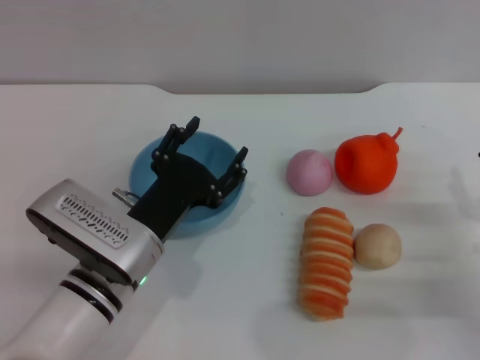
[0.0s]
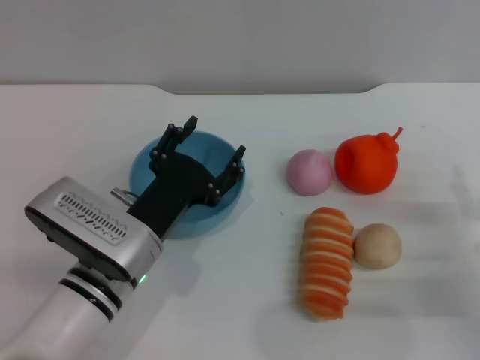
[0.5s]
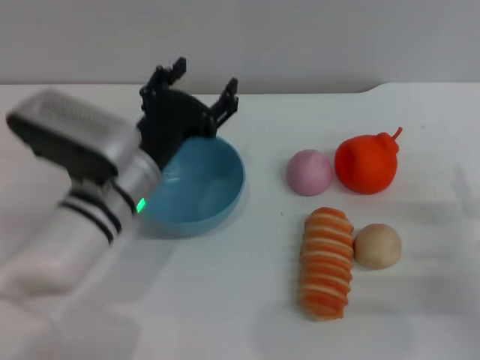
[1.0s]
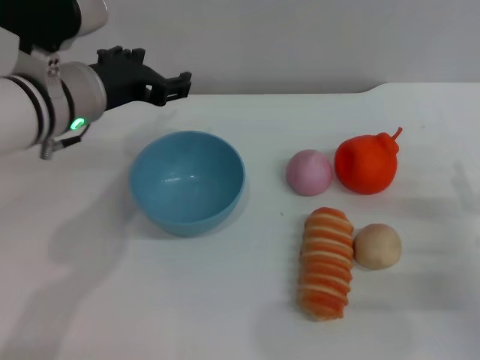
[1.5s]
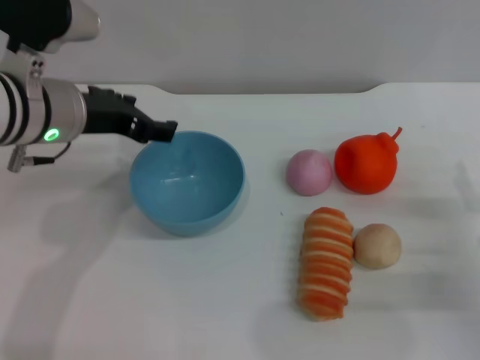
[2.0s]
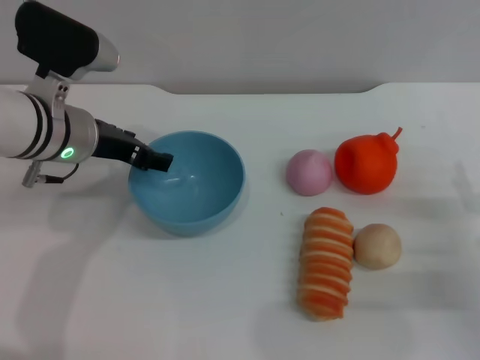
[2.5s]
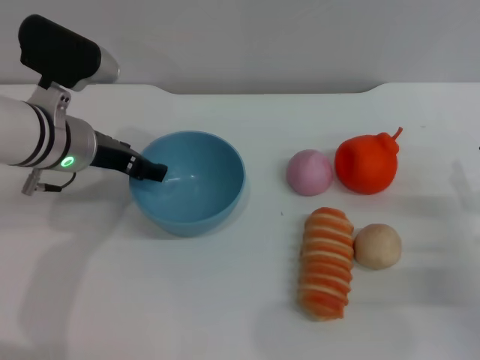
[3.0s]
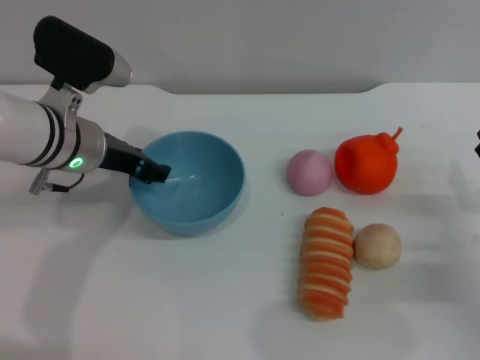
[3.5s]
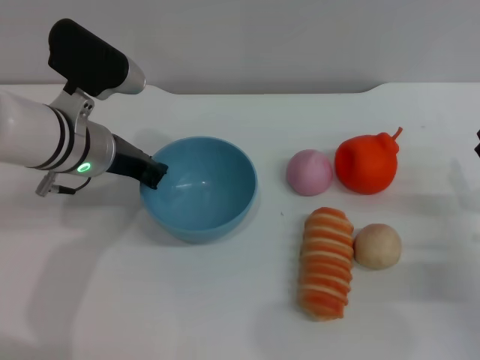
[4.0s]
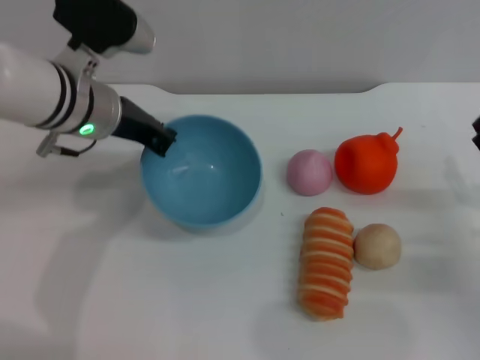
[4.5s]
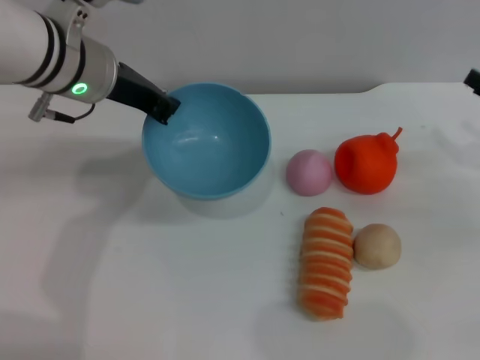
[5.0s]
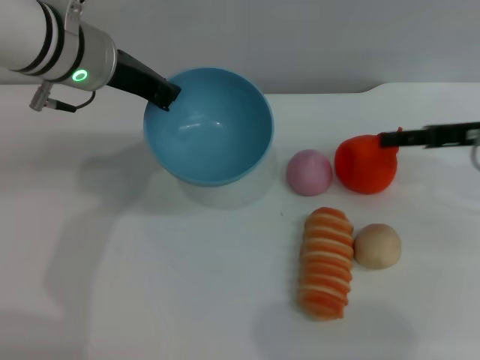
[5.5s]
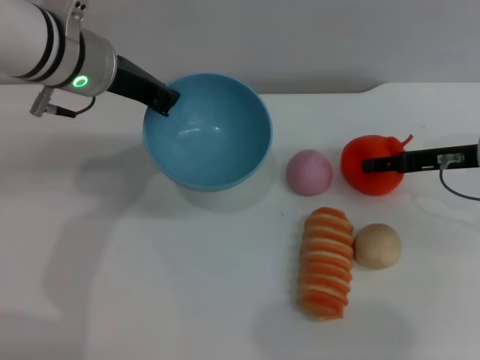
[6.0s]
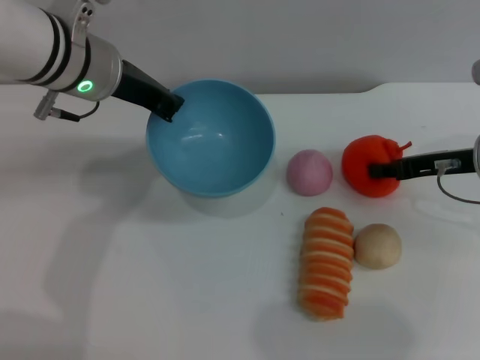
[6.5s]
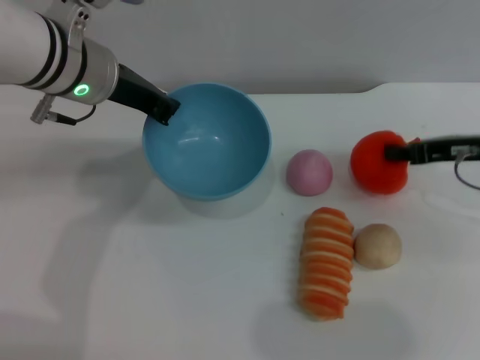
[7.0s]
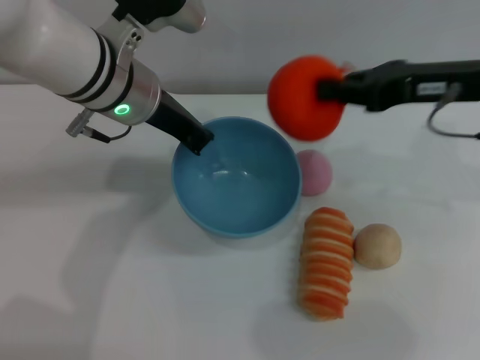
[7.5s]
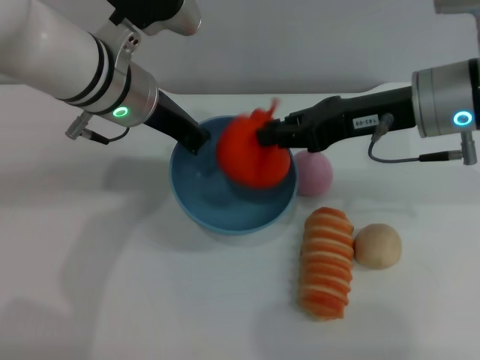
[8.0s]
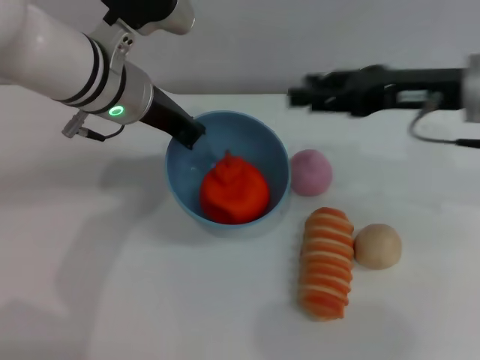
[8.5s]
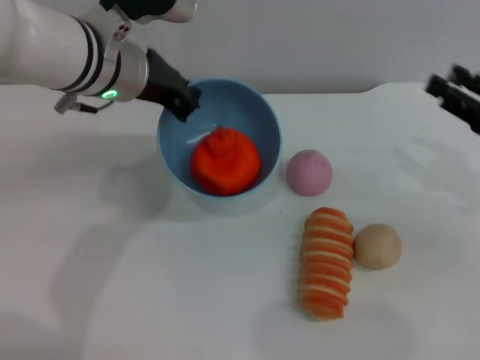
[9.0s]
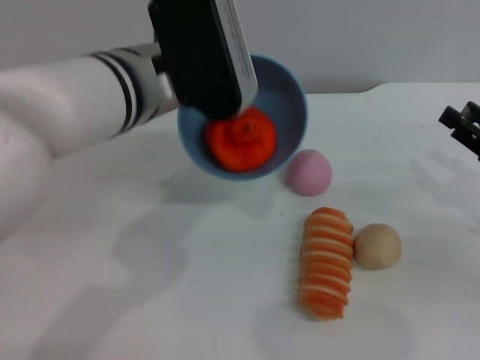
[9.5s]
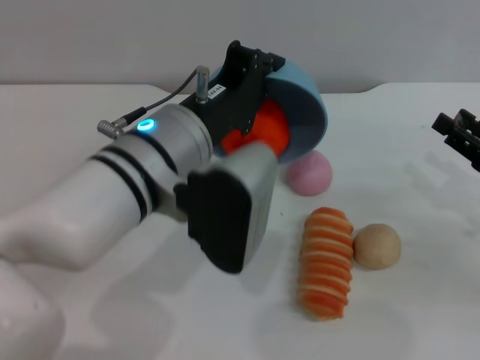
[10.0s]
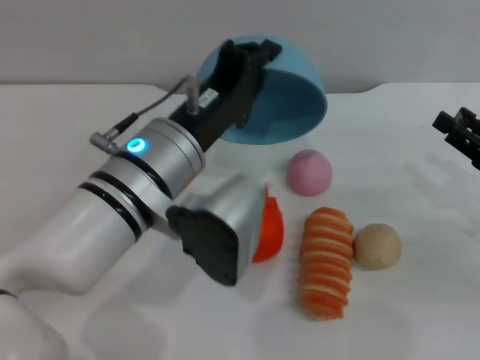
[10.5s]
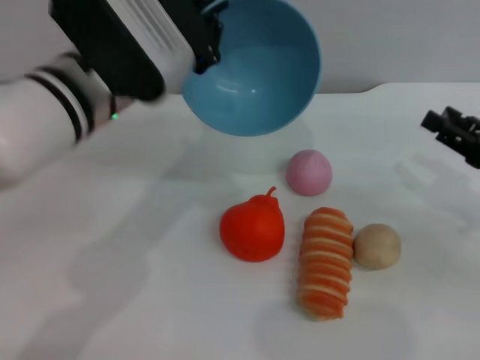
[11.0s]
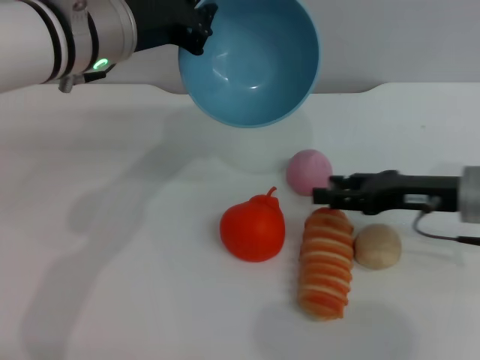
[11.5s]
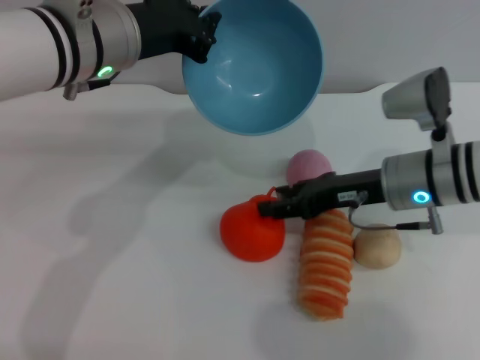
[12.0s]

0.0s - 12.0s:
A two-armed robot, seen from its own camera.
Task of the whole recording: put the orange into the blue bowl and pour it out repeatedly.
Step, 0.0s - 4.5s: Pick up the bowl with the left gripper.
Step, 5.0s - 7.0s: Pick up the orange with the right gripper.
Step, 7.5s - 8.0s: Place the orange into the bowl.
Step, 8.5s - 10.5s: Pour the orange out of the bowl.
0.0s - 2.0s: The left gripper moves upward and forward, some 15 cm.
2.0s - 4.0s: The left gripper shifts roughly 5 cm downward, and closes up.
4.0s - 6.0s: The right gripper travels forward and upward by approximately 15 cm, while the left gripper shifts some 10 cm upward, and closes.
6.0s - 8.0s: The right gripper heads to the left and upward, covering some 15 cm, and closes its fingers.
8.0s - 10.0s: The left gripper shifts some 10 cm backward; the right gripper goes some 20 cm to the right, downward and backward, and opens its fingers.
10.0s - 12.0s: The left gripper travels forward, to the left and upward by approximately 10 cm. The right gripper shifts some 15 cm to the left and forward.

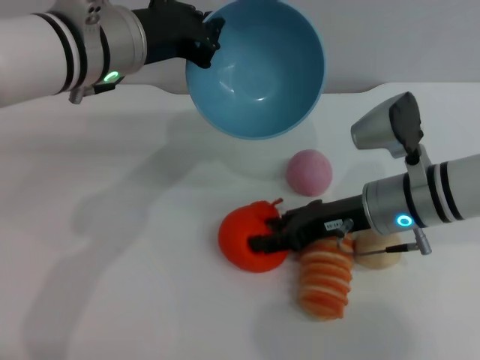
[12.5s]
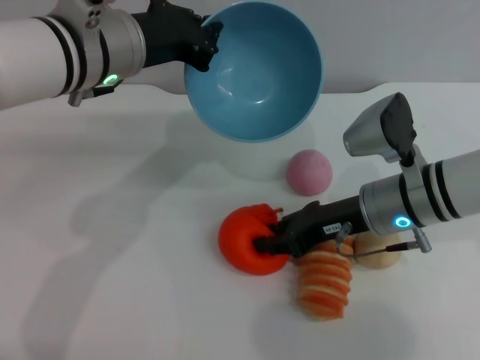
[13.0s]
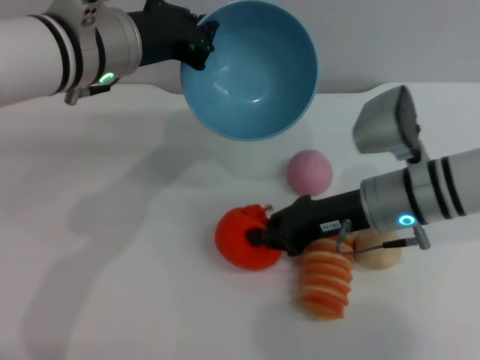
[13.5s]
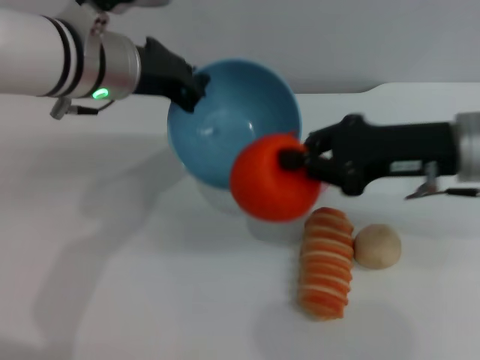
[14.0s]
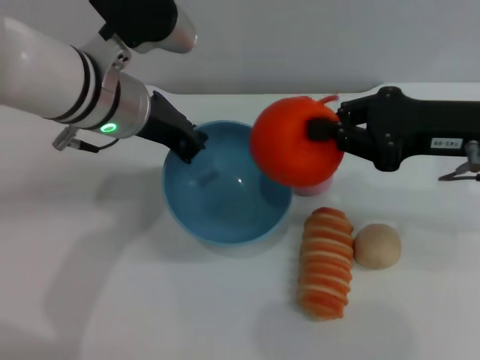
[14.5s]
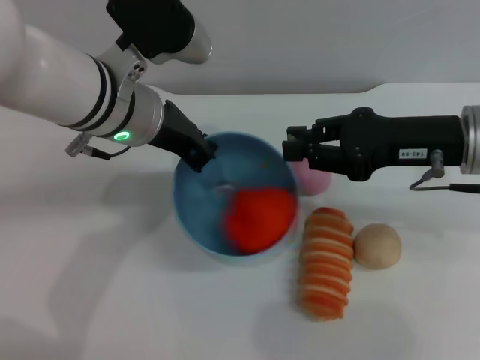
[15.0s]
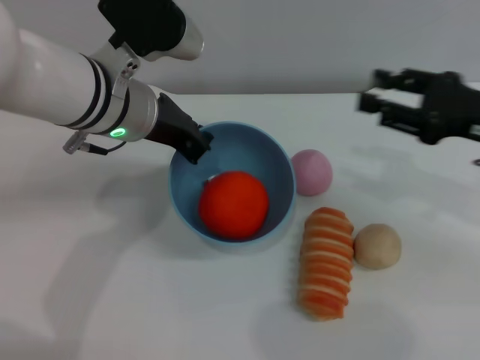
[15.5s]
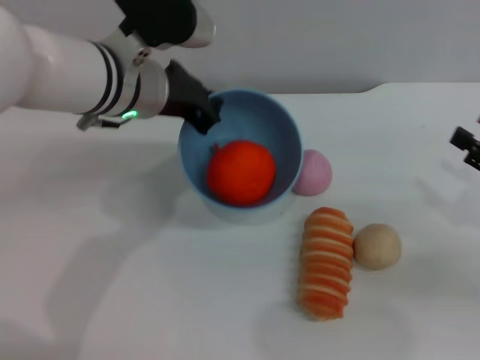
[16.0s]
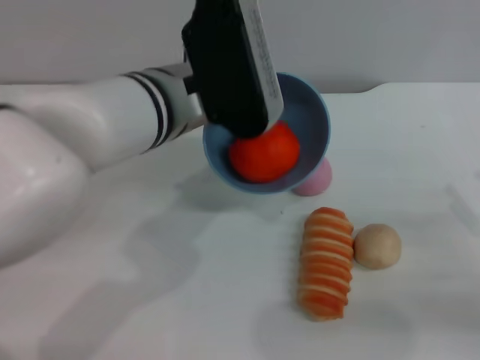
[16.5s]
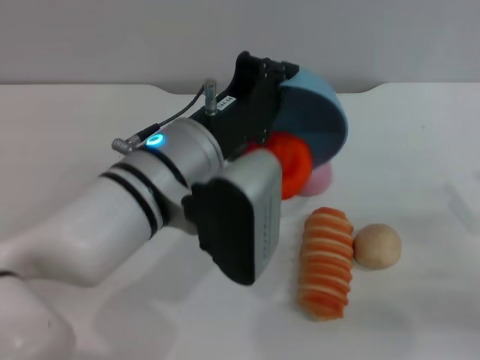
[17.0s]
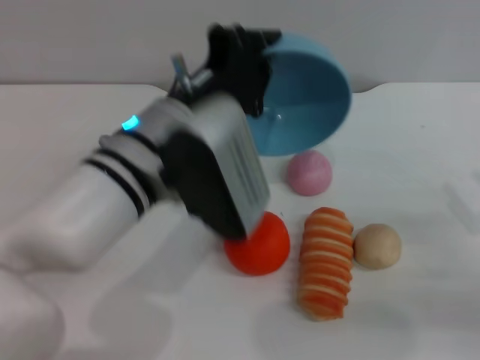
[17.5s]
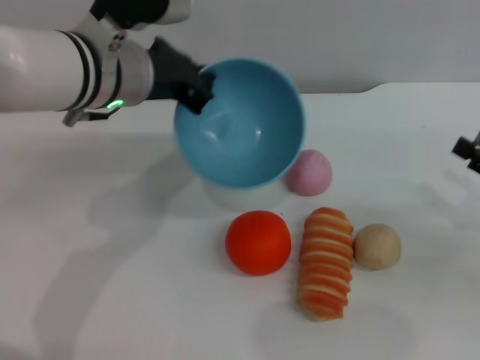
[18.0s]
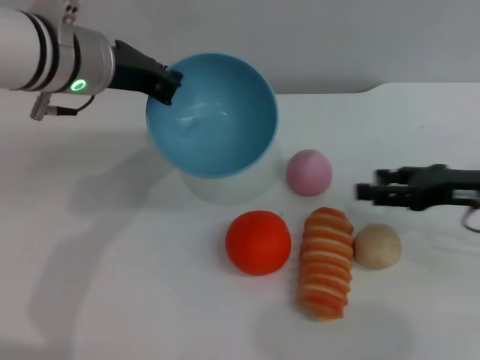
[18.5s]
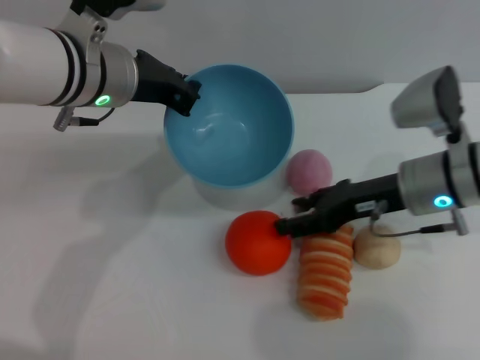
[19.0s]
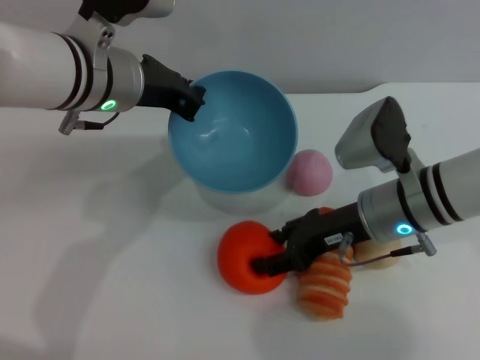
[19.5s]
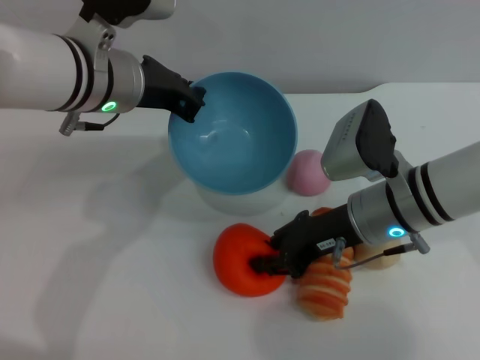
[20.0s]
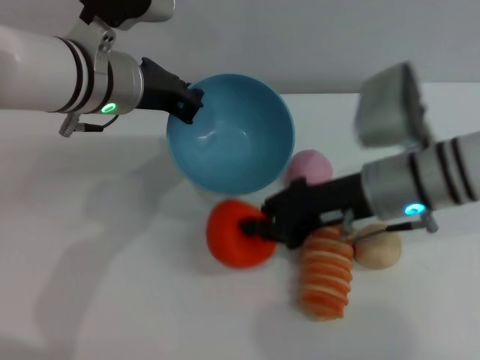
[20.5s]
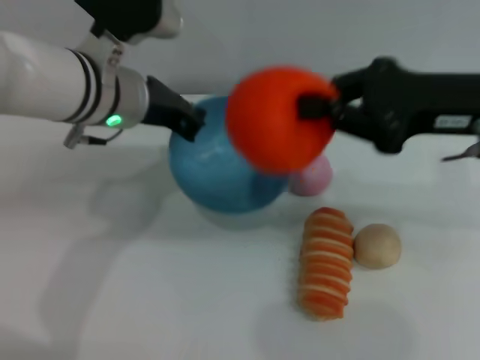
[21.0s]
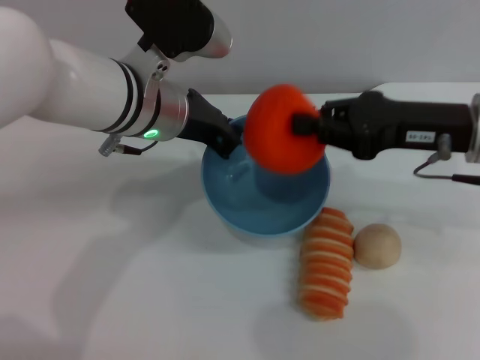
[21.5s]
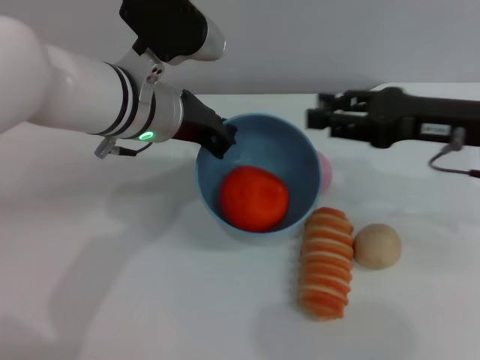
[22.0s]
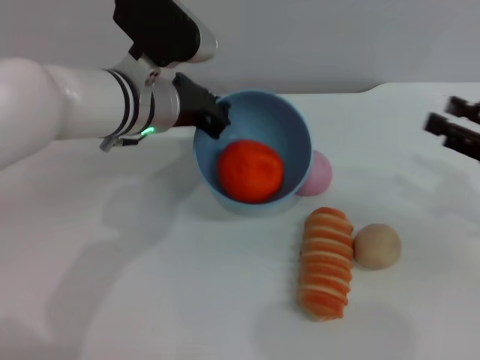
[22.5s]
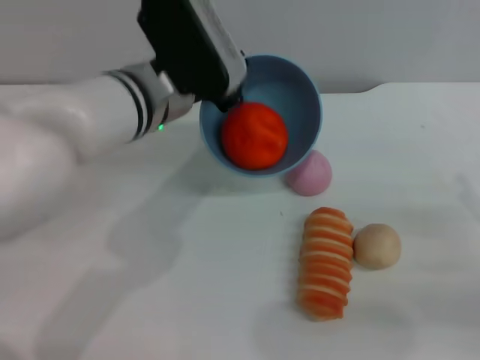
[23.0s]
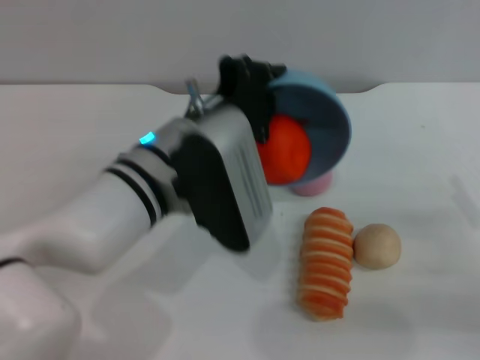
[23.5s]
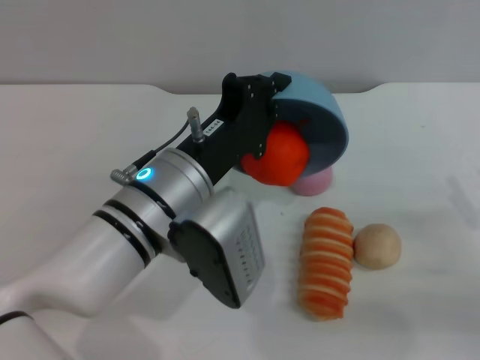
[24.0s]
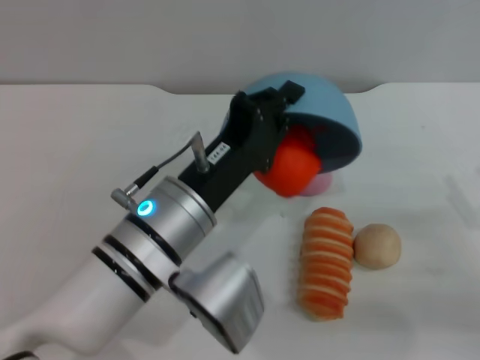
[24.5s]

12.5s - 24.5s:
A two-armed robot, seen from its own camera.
Task of the whole recording: put the orange into the blue bowl and pour it out repeatedly.
Step, 14.0s - 15.0s: Place the orange into the bowl.
Step, 15.5s - 17.0s: Pour the orange out of the bowl.
Step, 17.5s - 20.5s: Pick up the orange with the right gripper.
Step, 21.0s - 22.0s: Place the orange into the bowl.
12.5s - 14.5s: The right gripper moves upward and to the right, roughly 15 cm, and closes up.
14.5s - 16.5s: The right gripper shifts some 20 cm downward, to the right and backward, and opens. The left gripper shifts roughly 5 cm to the right.
16.5s - 18.5s: The left gripper shifts some 10 cm to the left; the right gripper moves forward, to the left and upward, about 15 cm.
18.5s - 20.5s: The right gripper goes some 15 cm to the left, and closes its fingers.
20.5s - 22.5s: The right gripper travels to the right by about 20 cm, and opens its fingers.
22.5s - 24.5s: The right gripper shifts approximately 10 cm downward and backward, while the left gripper shifts roughly 15 cm backward.

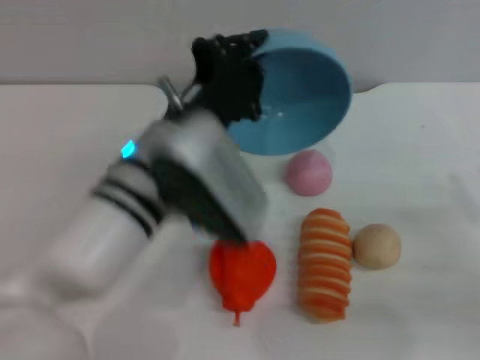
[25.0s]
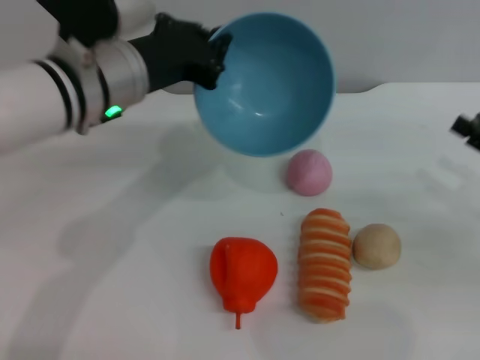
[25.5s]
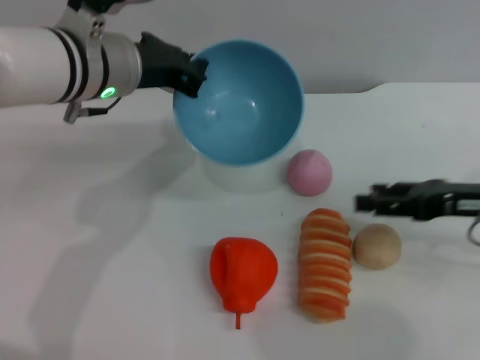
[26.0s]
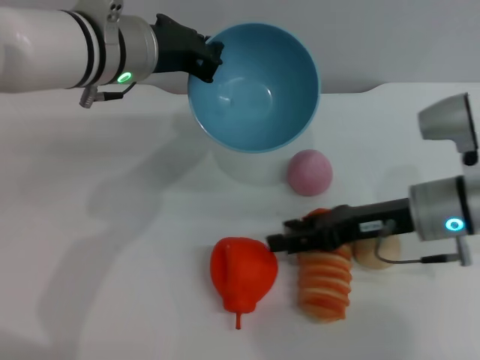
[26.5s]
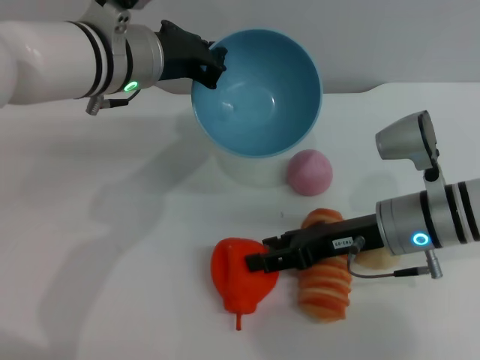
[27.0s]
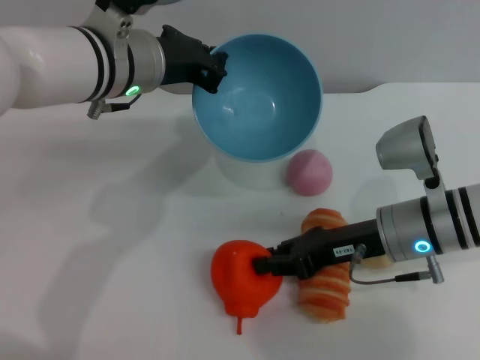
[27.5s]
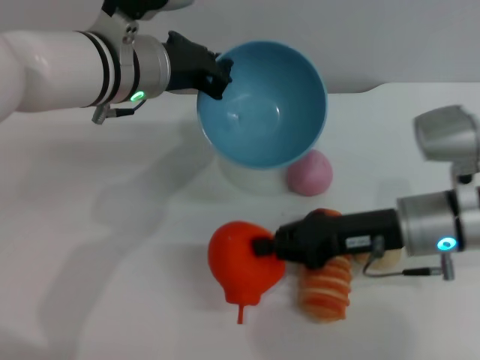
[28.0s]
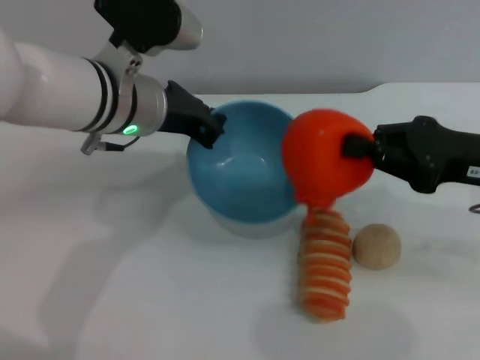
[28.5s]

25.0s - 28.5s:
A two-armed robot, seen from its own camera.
Task of the whole recording: put the orange into the blue bowl and pour it out repeatedly.
Step, 25.5s - 27.5s: Pick up the orange with the right gripper.
25.0s - 27.0s: The right gripper moves to the left and forward, approximately 20 cm. The left gripper shifts approximately 10 cm forward and upward.
27.0s - 28.5s: The right gripper is displaced to the right and upward by approximately 15 cm, and closes.
